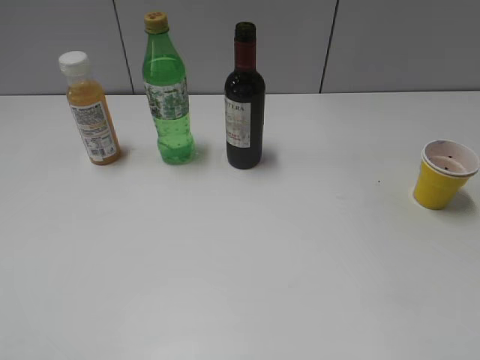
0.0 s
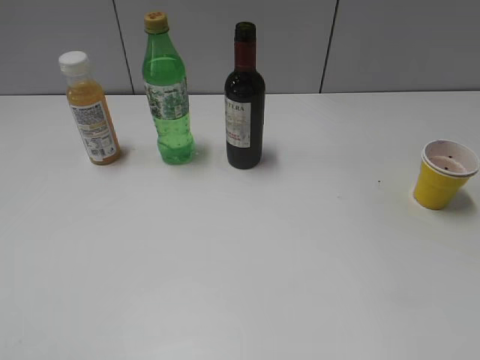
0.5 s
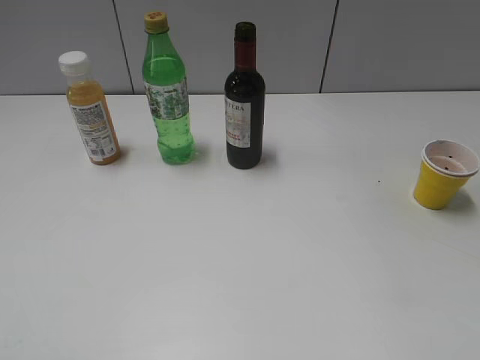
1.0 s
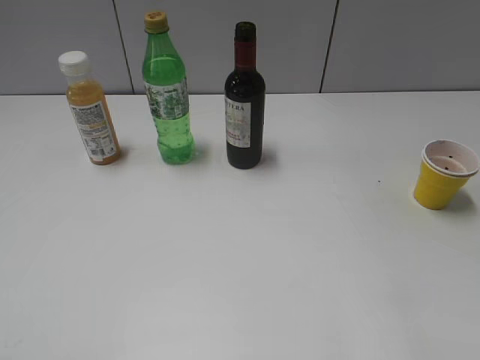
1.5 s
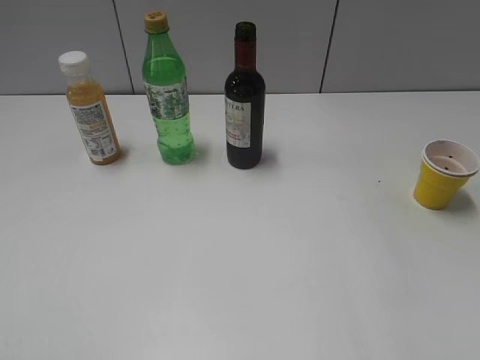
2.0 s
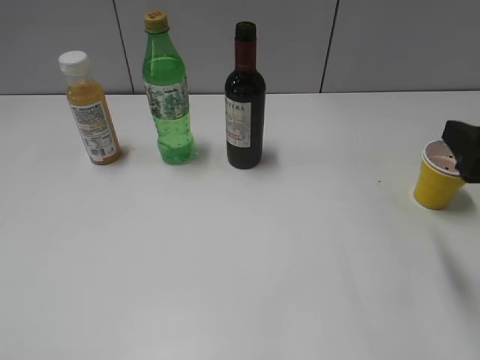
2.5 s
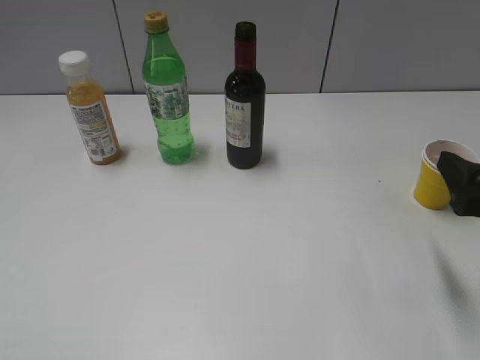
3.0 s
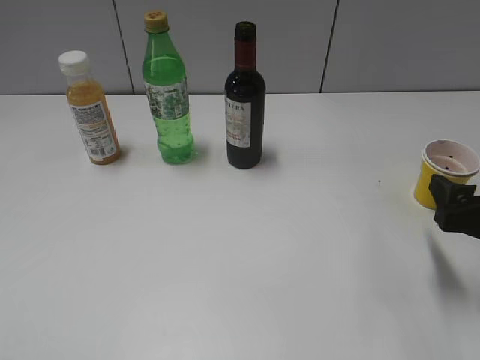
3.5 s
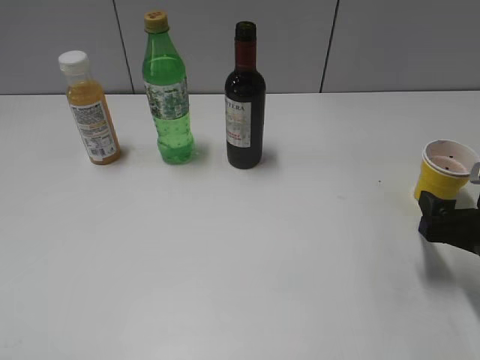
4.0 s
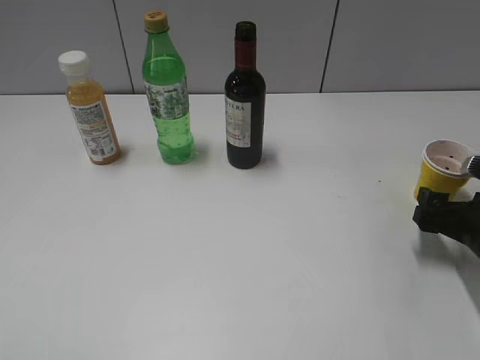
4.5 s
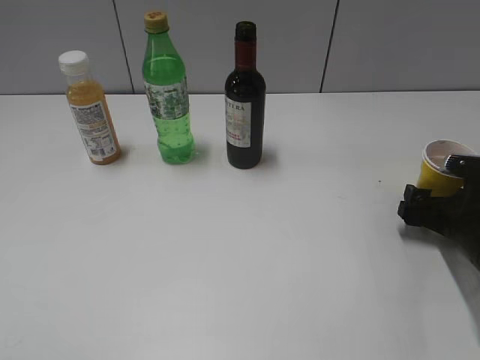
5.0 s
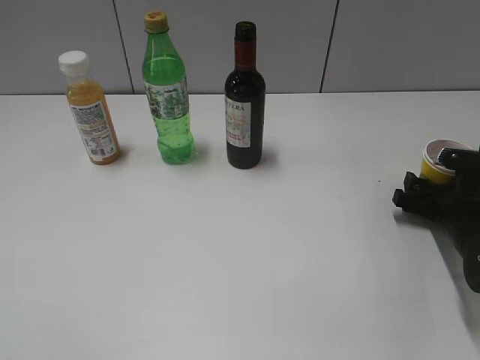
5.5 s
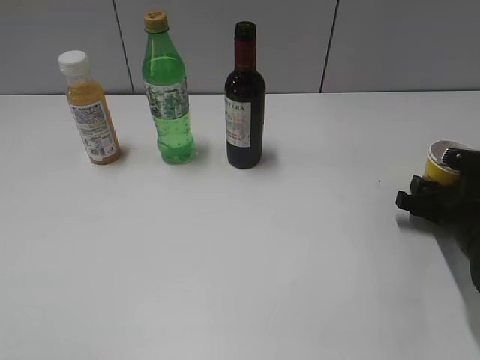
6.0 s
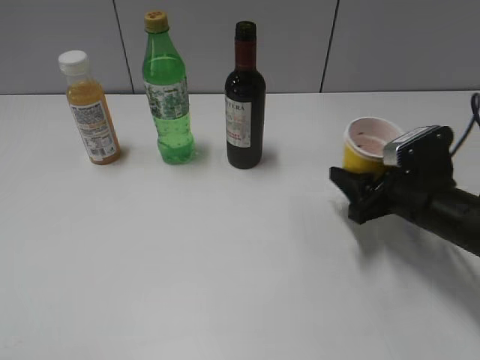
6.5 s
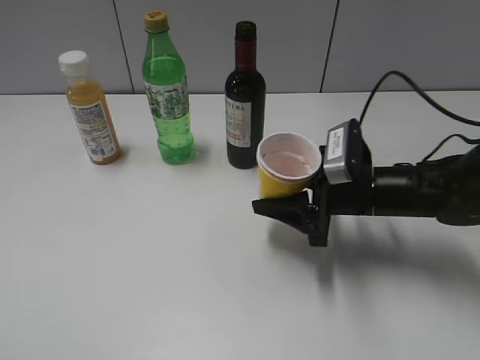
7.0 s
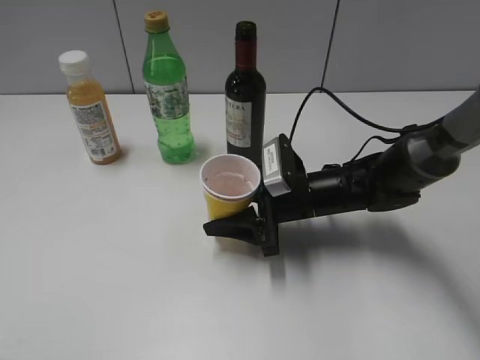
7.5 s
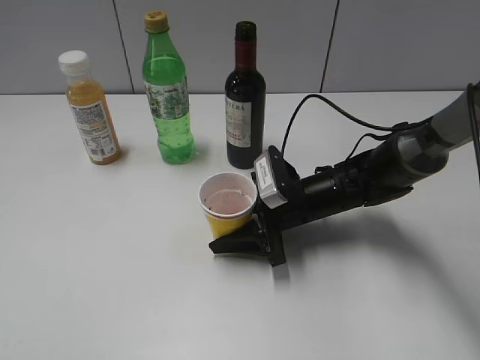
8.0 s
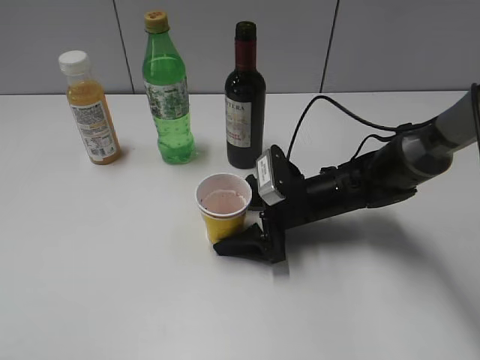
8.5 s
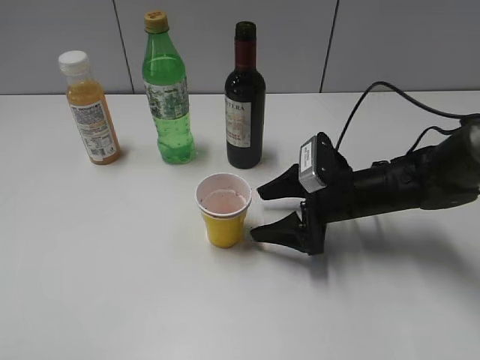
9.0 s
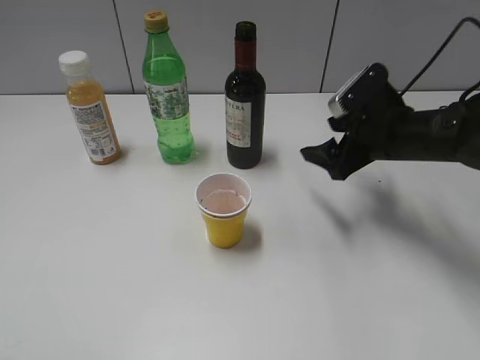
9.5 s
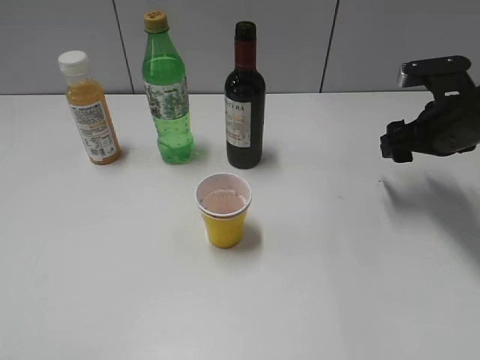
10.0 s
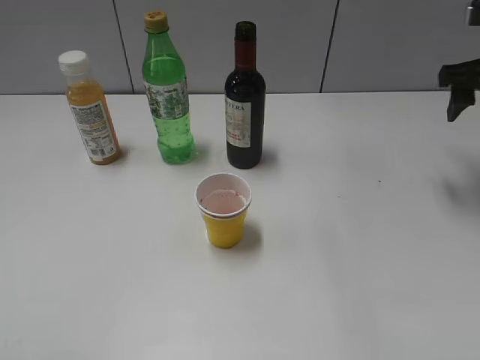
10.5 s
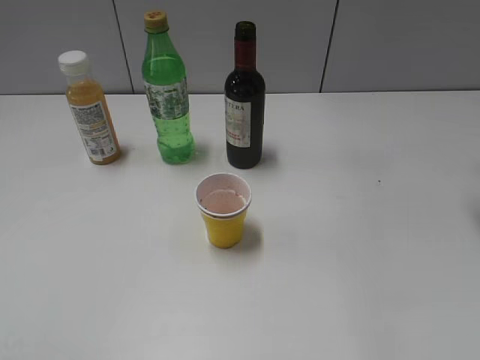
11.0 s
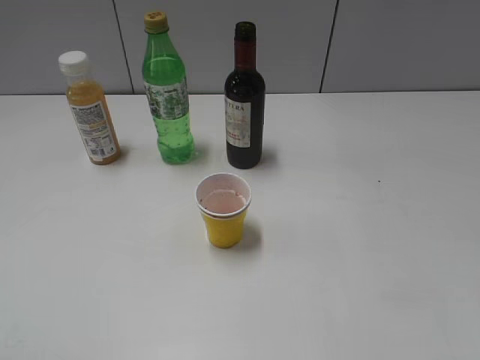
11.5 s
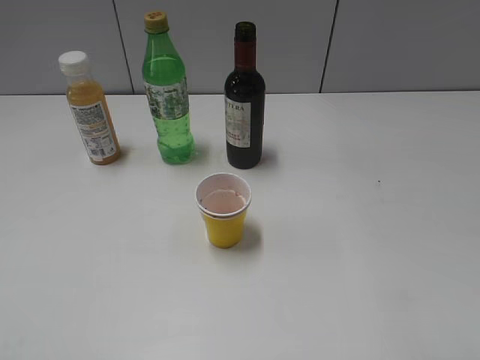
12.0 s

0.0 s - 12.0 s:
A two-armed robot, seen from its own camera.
Step, 1.0 s - 5.5 s: Grasp the yellow paper cup with right gripper.
Step, 6.0 s - 8.5 s: Place the yellow paper cup on the table with right gripper.
2.0 s - 4.0 s: The right gripper moves downward, some 20 cm.
4.0 s - 6.0 s: The right gripper moves forward and downward, some 10 cm, and closes its fingers.
6.0 s - 8.0 s: The right gripper goes some 20 cm to the left.
8.0 s - 10.0 s: The right gripper shifts roughly 20 cm to the right and upward, and opens up.
10.0 s - 12.0 s: The right gripper is displaced backward and upward by some 25 cm.

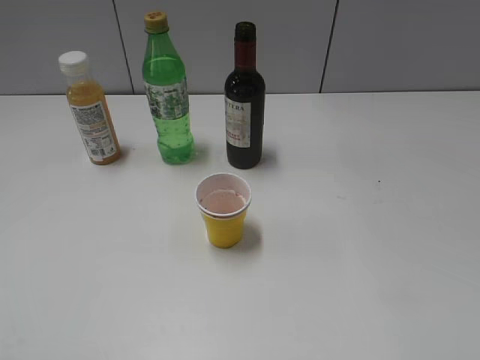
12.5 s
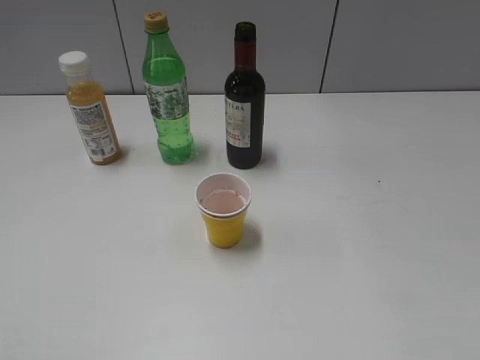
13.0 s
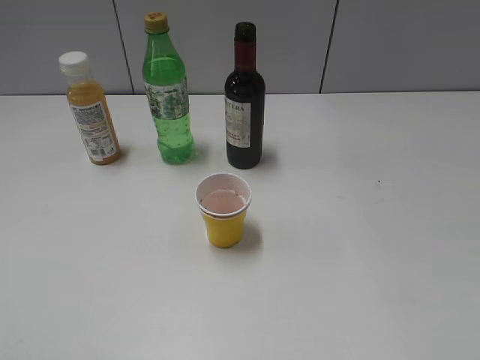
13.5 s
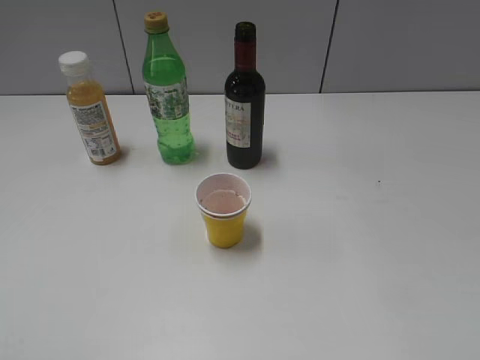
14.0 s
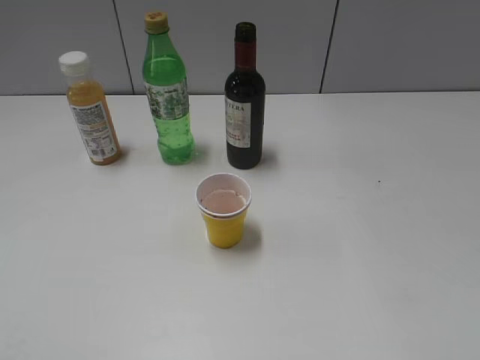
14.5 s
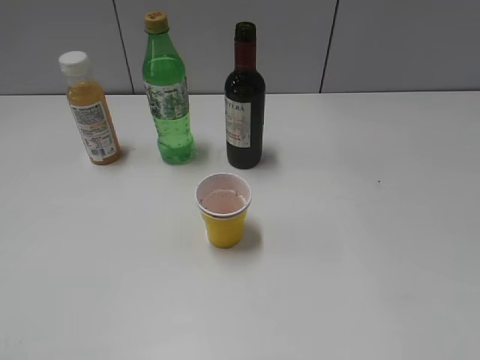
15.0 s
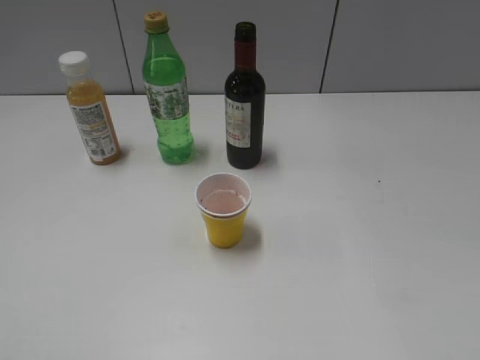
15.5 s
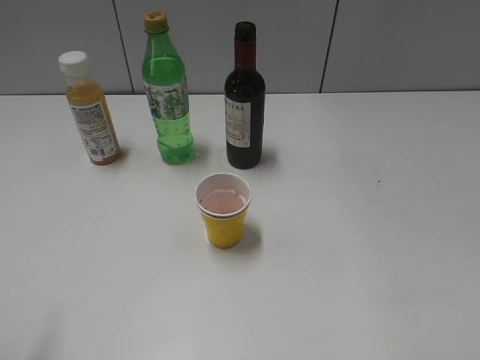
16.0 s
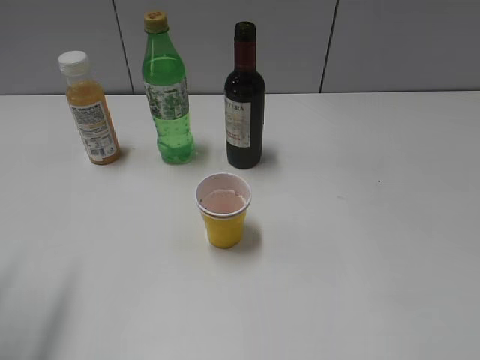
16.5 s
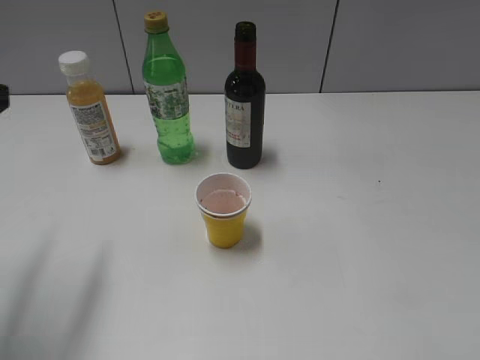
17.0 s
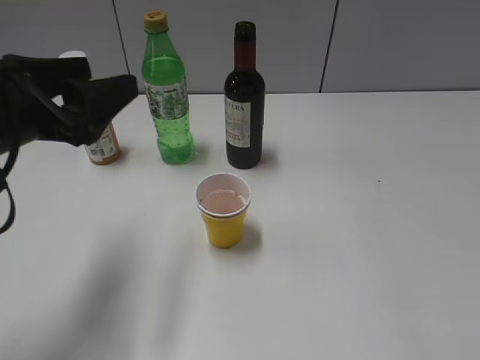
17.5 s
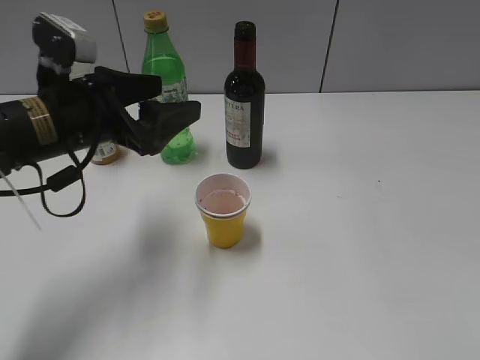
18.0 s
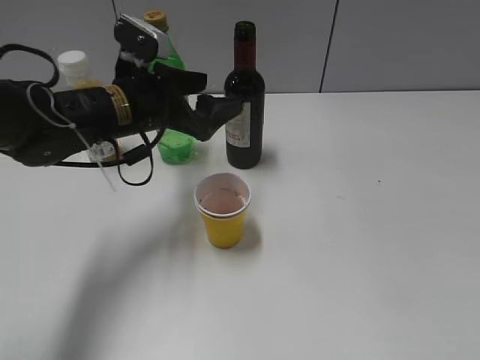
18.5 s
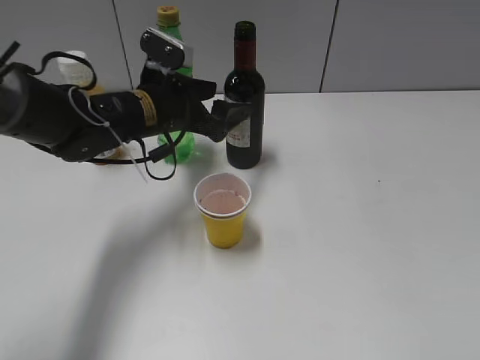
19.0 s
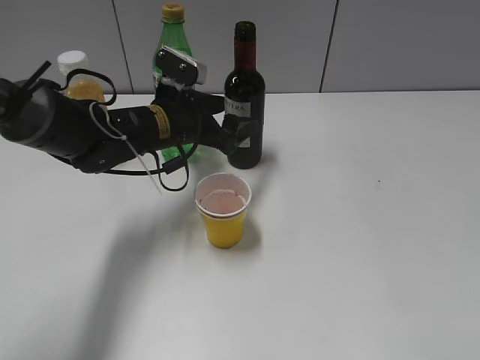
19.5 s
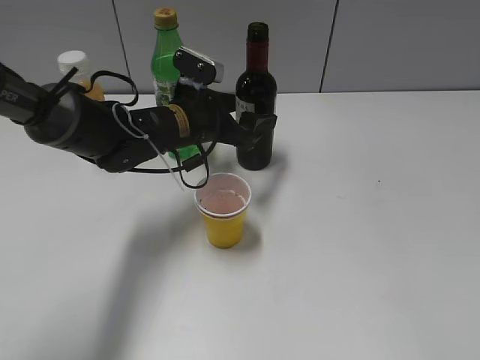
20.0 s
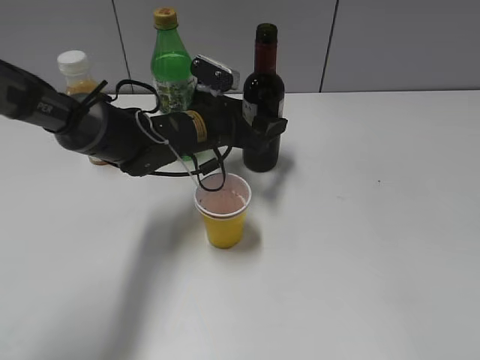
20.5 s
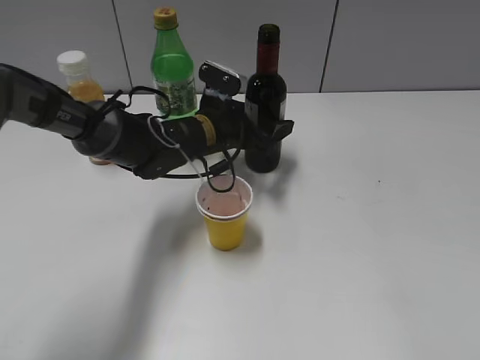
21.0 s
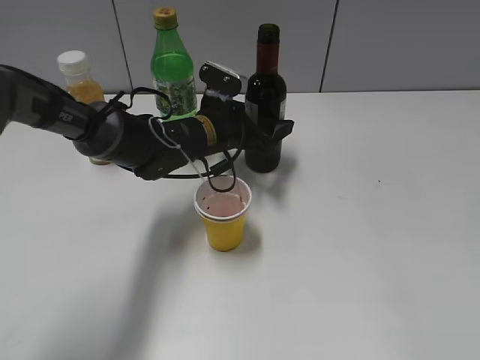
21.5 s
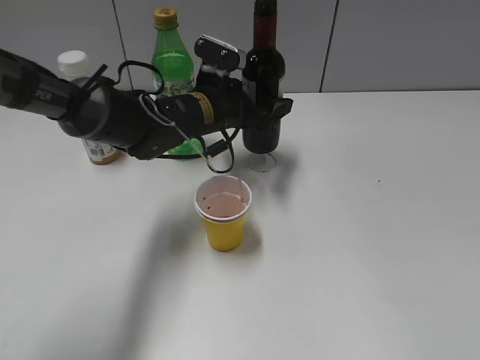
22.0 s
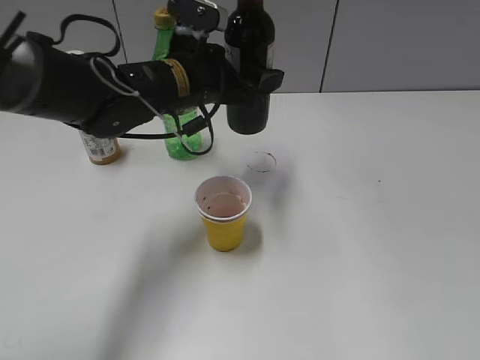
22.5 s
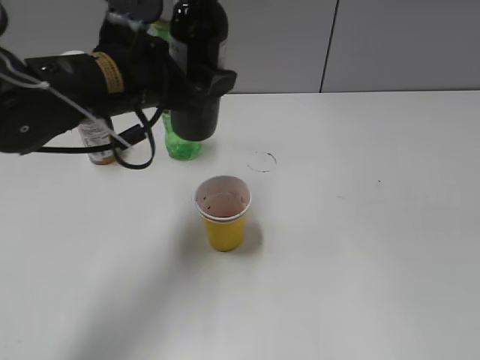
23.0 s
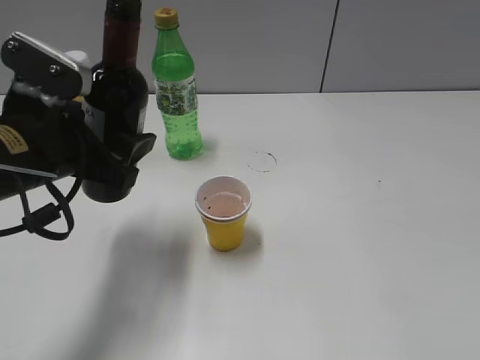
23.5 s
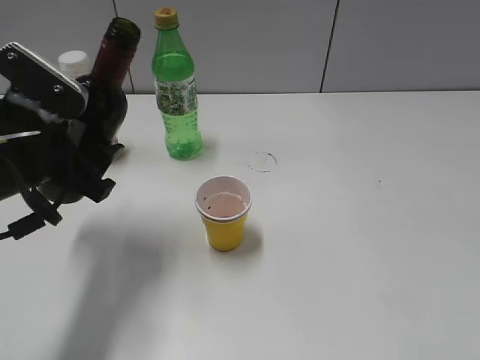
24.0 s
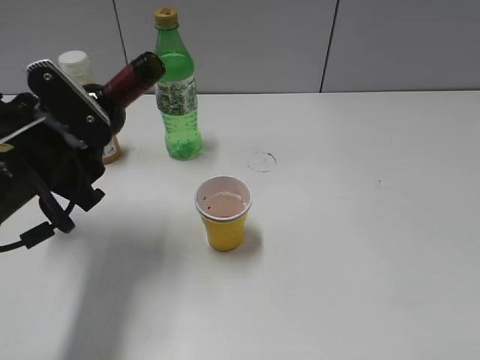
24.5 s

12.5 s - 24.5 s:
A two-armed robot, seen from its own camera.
Step, 12.5 s - 21.5 s: Grasp the bottle with red wine with left gripper.
14.5 s - 16.5 s: The left gripper is displaced forward by some 15 cm, and opens.
16.5 s - 18.5 s: The left gripper goes roughly 30 cm forward, to the right and downward.
18.5 s - 20.5 s: The left gripper shifts about 10 cm to the right, downward and forward.
20.5 s - 22.5 s: The left gripper moves upward, some 10 cm.
22.5 s - 24.5 s: The left gripper moves backward and to the left, roughly 20 cm.

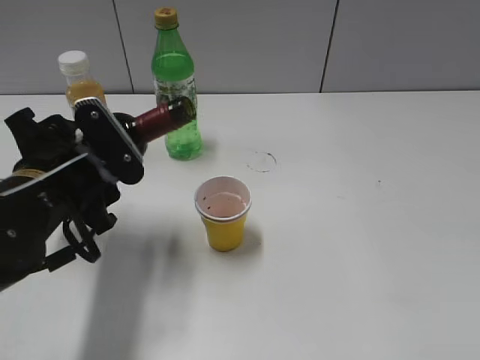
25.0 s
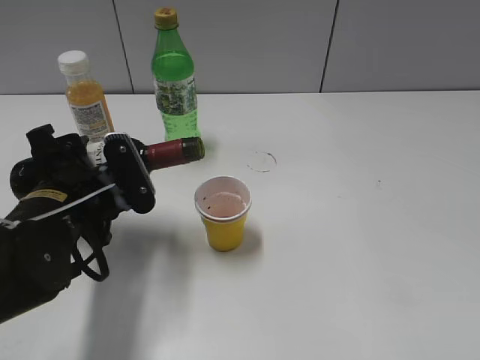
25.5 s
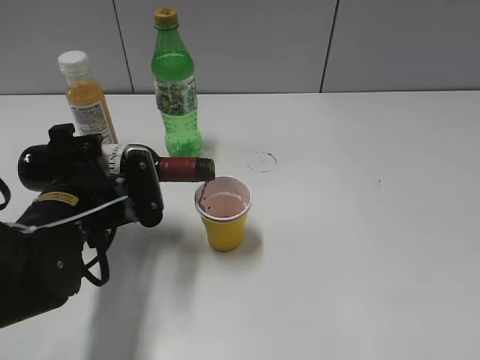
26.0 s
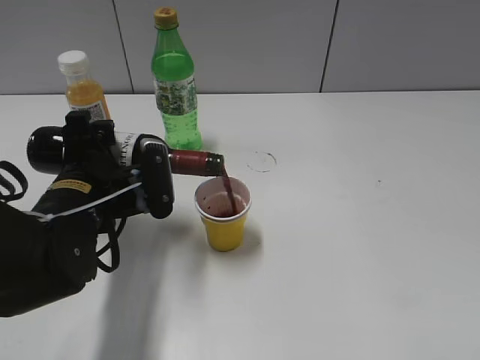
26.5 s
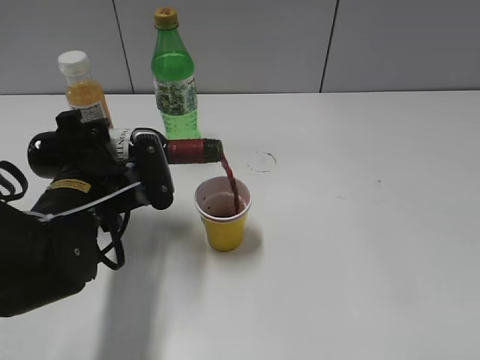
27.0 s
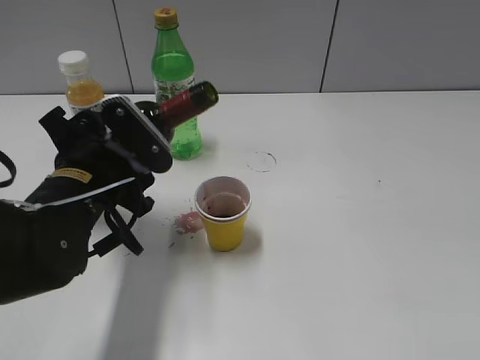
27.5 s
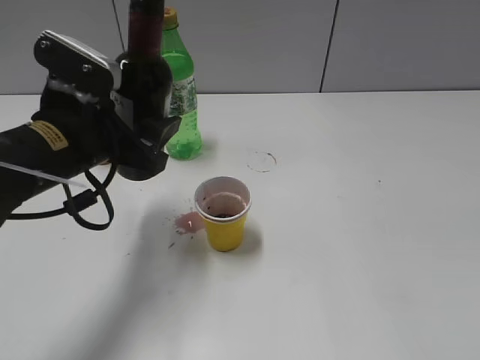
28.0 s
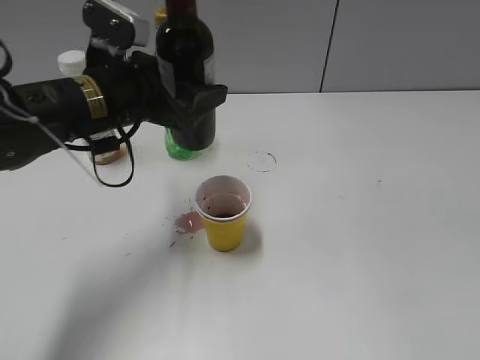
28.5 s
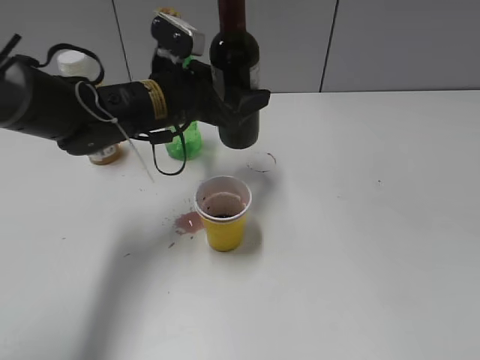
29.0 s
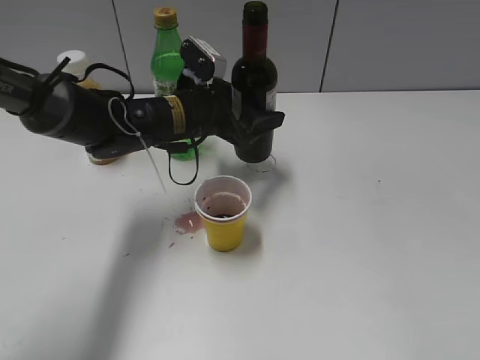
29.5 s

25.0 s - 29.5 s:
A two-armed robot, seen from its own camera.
Step, 25.0 s - 27.5 s: Pour the red wine from bottle to cup with left gripper.
27.0 s - 29.5 s: The left gripper travels forward and to the right by about 20 cm.
